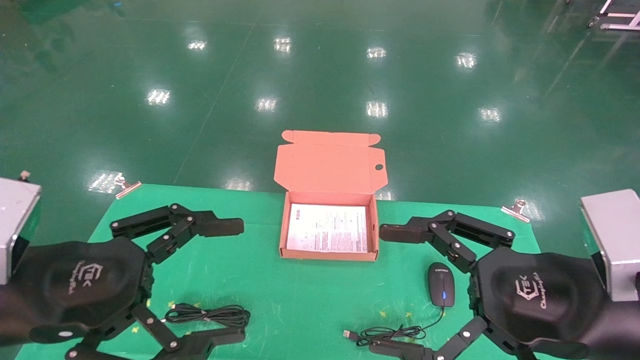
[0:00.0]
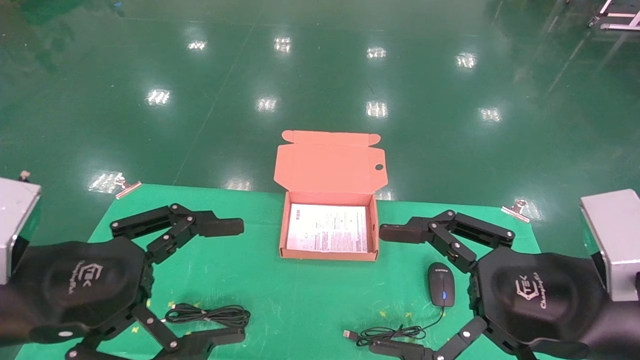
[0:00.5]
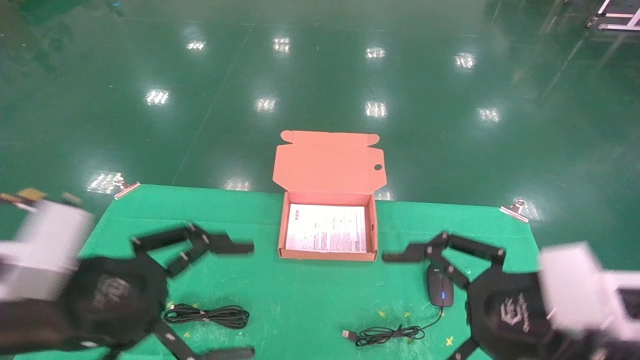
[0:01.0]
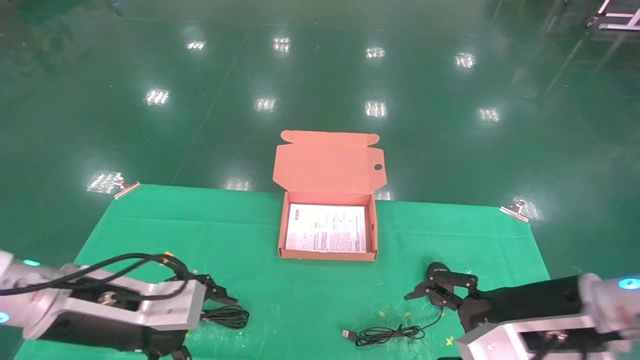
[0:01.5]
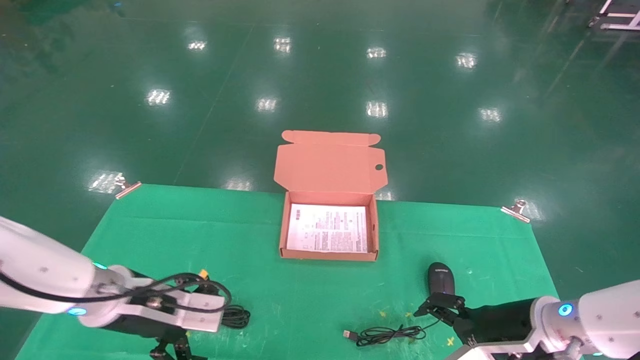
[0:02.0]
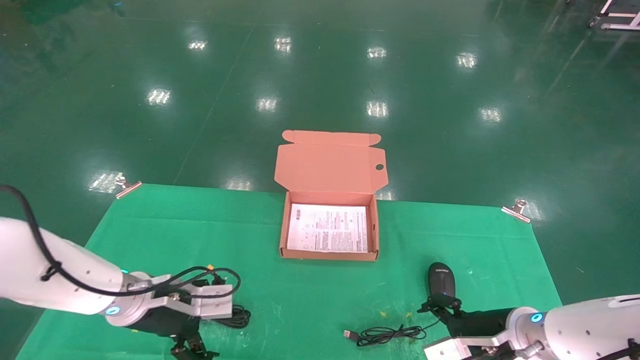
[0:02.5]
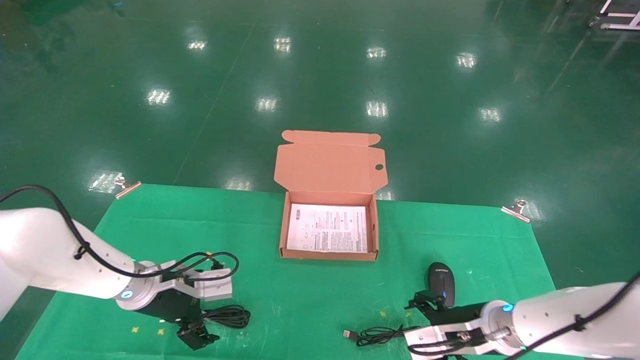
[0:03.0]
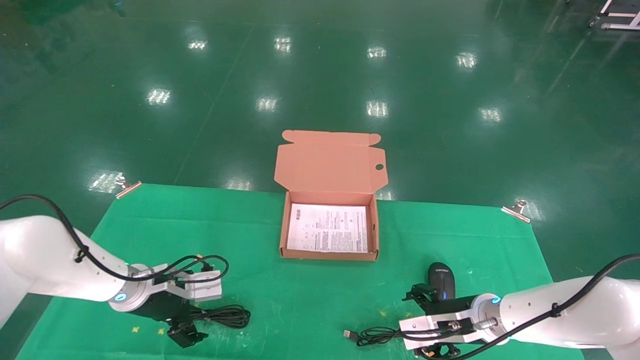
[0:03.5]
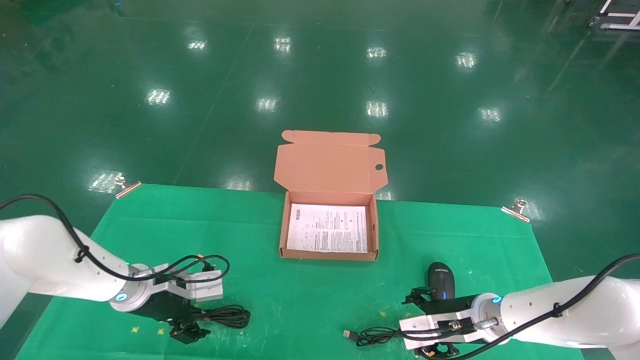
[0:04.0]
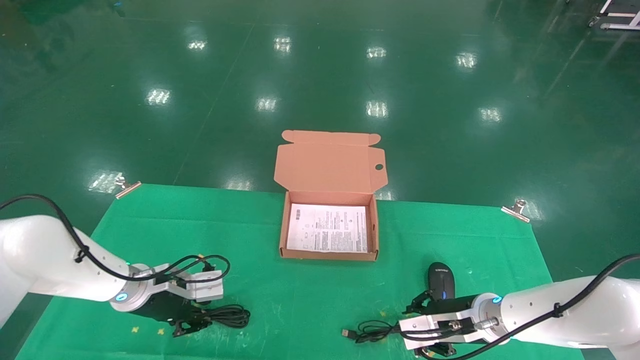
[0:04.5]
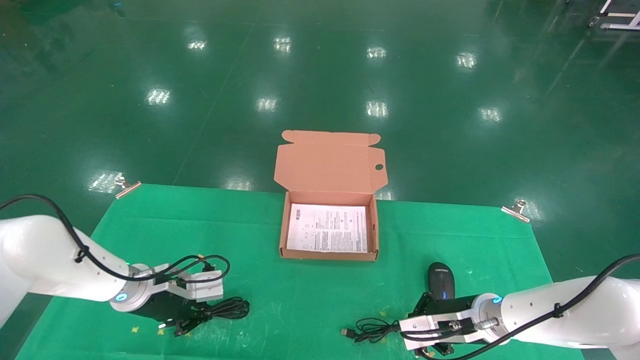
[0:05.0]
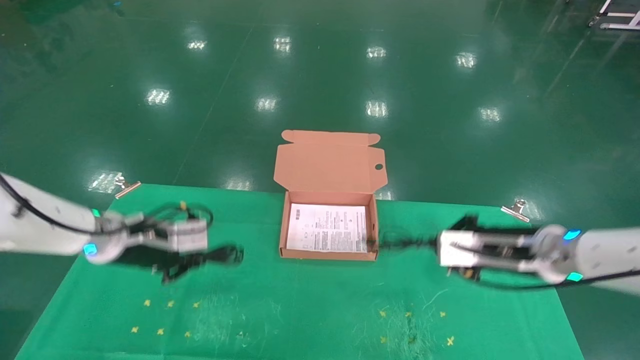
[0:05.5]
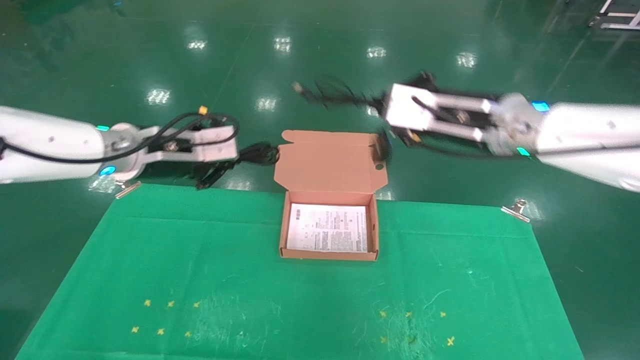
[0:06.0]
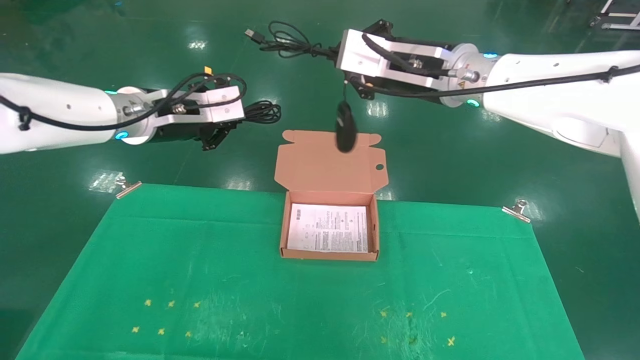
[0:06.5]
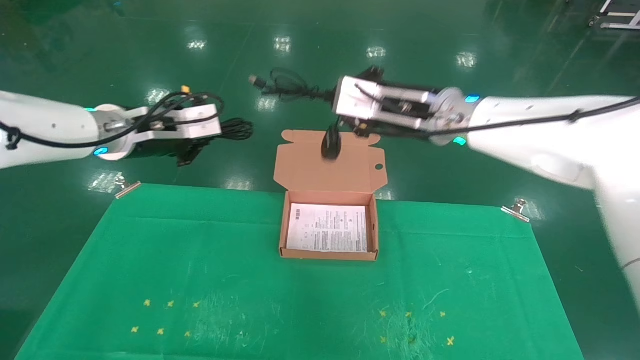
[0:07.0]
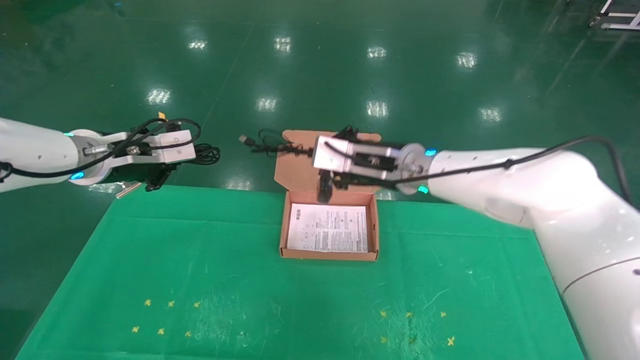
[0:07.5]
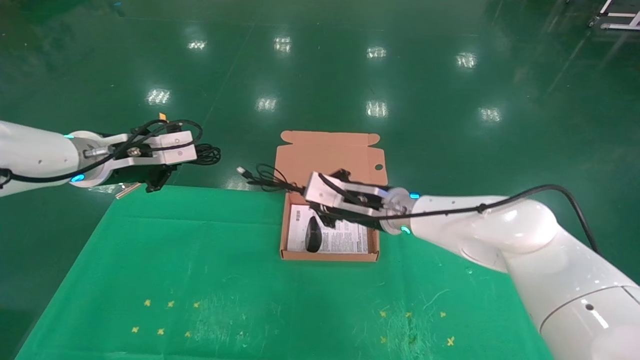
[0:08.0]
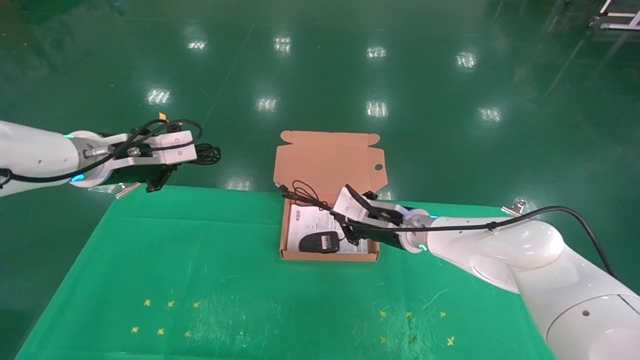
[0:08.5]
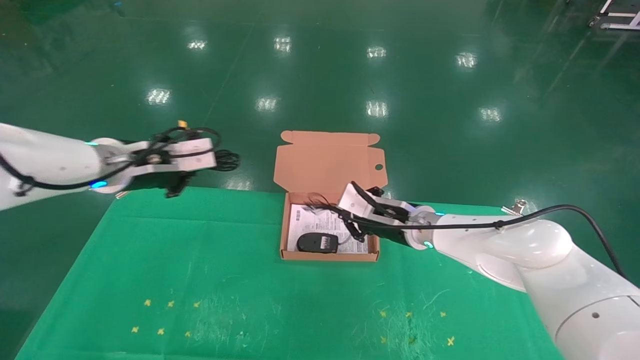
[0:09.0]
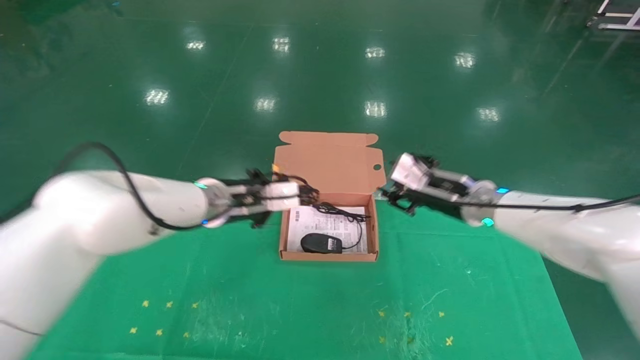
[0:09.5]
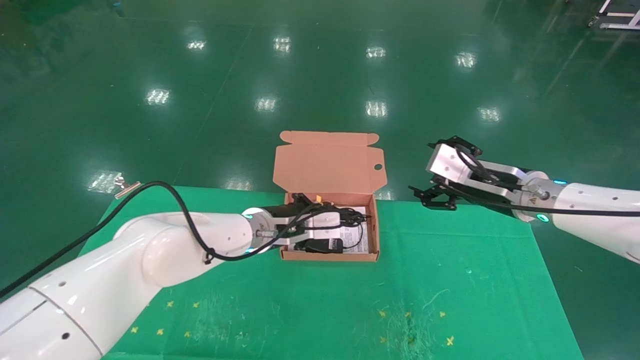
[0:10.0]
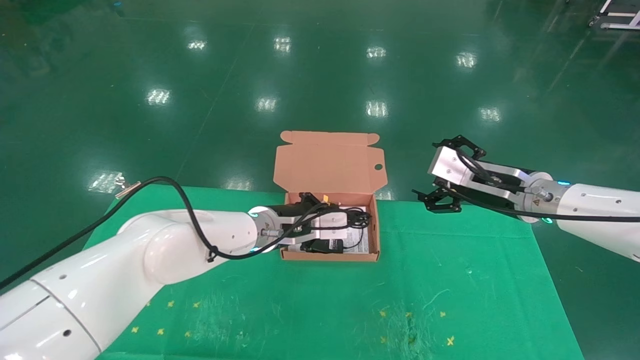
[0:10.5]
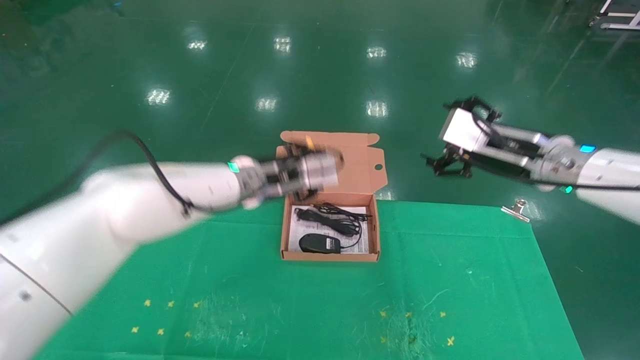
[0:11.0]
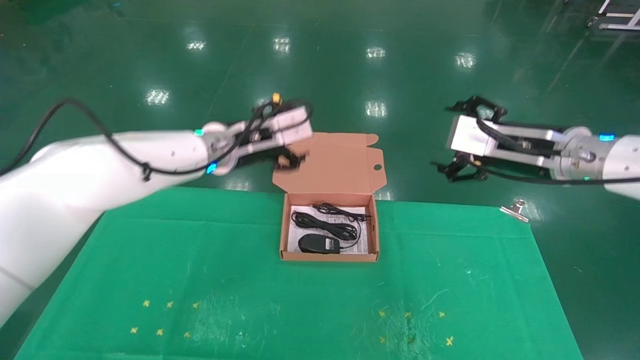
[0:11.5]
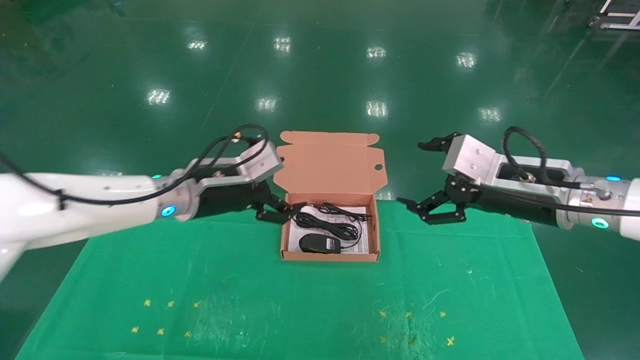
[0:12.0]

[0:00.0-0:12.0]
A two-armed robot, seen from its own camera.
Task of the whole recording: grasp data cable left put into box grasp mouse right put into box.
Step, 0:01.0 to 0:05.0: Grab and pick up both the mouse and power cord from the accessory packaging area at the same time.
Step, 0:05.5 to 0:10.5: Place the mouse and power cord into the box.
0:00.0 to 0:02.0: The grippers both shift forward and downward by roughly 20 cm.
0:02.0 to 0:04.0: Both grippers travel together forward and downward, roughly 10 cm.
0:04.0 to 0:06.0: The two grippers go roughly 25 cm upward. The left gripper closes its fingers, while the right gripper closes.
0:06.0 to 0:08.0: The right gripper moves downward, to the left and forward, some 20 cm.
0:08.0 to 0:10.0: The left gripper goes some 25 cm to the right and downward. Meanwhile the right gripper heads to the right, covering roughly 15 cm, and opens its fingers.
0:10.0 to 0:12.0: The right gripper travels backward by some 10 cm; the left gripper heads to the left and upward, covering approximately 10 cm, and opens up.
